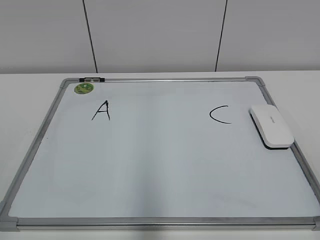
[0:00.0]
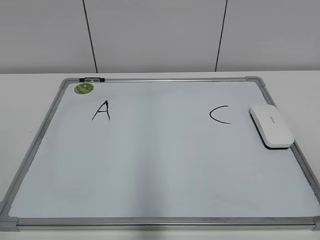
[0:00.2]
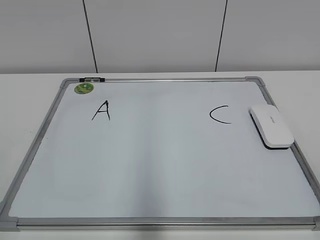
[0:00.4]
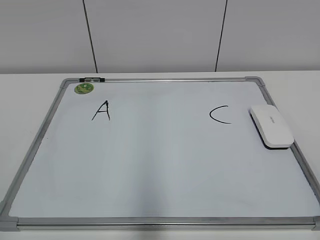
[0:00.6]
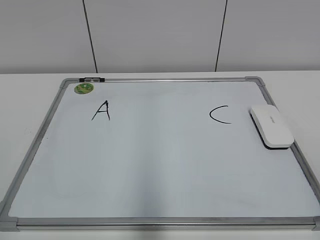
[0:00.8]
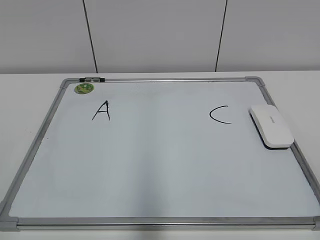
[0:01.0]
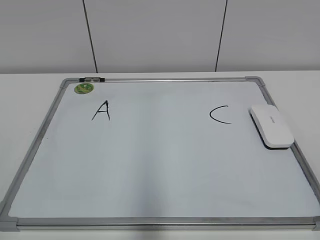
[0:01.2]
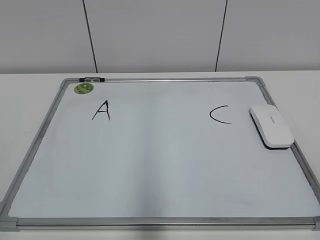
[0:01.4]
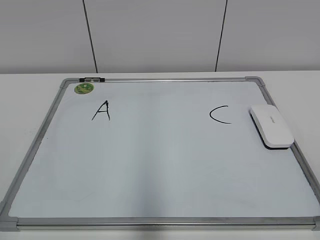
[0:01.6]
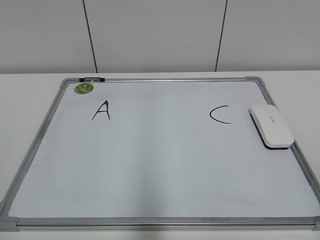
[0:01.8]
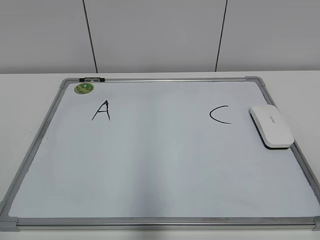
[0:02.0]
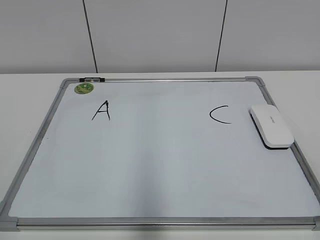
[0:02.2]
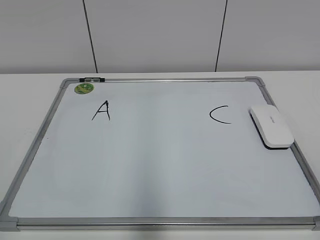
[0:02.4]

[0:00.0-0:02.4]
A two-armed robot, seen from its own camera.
Task of the whole recording: pick up the eraser on the blackboard and erase the letter "B".
0:01.2 to 0:02.4: Neither gripper changes place.

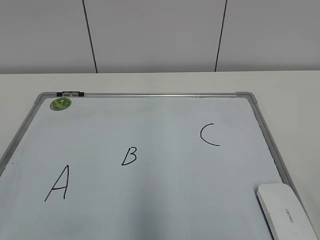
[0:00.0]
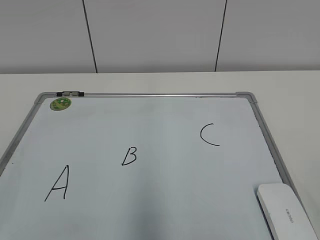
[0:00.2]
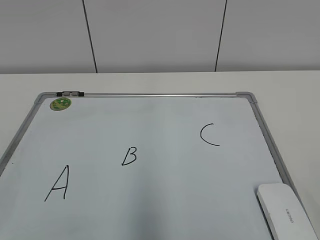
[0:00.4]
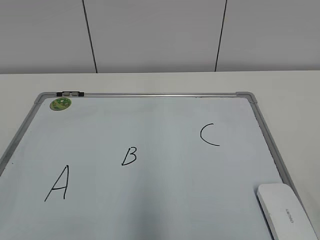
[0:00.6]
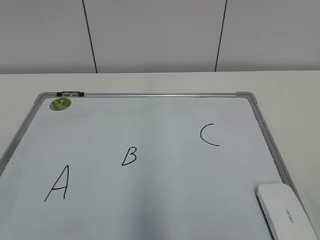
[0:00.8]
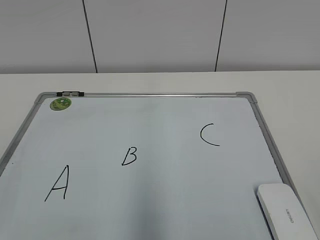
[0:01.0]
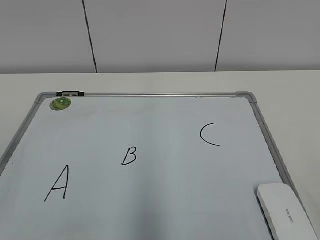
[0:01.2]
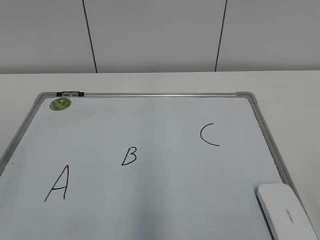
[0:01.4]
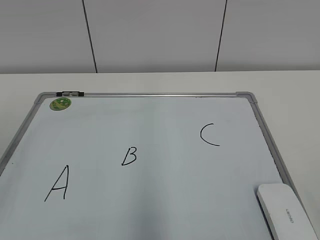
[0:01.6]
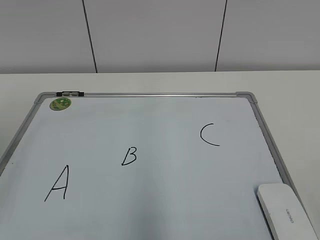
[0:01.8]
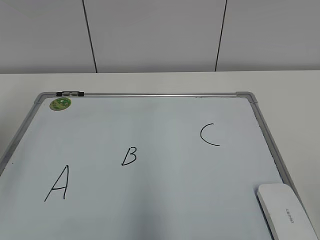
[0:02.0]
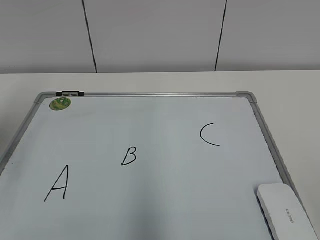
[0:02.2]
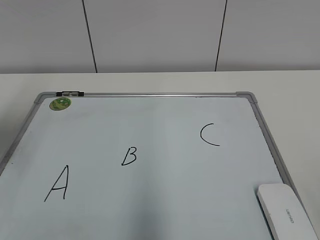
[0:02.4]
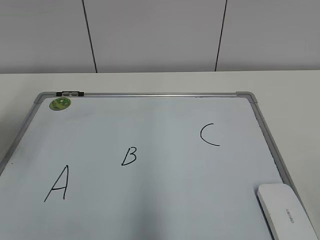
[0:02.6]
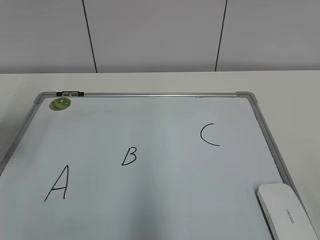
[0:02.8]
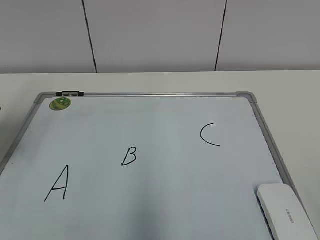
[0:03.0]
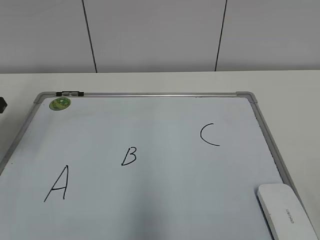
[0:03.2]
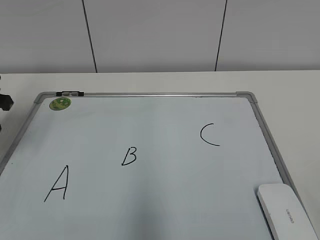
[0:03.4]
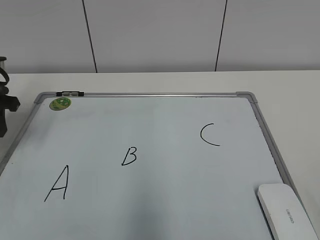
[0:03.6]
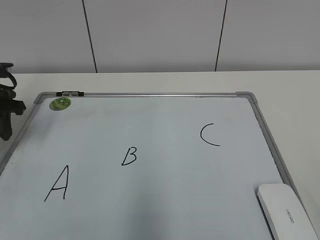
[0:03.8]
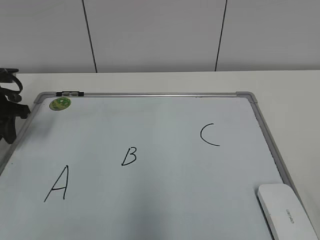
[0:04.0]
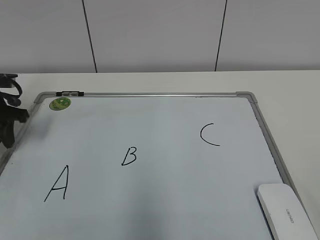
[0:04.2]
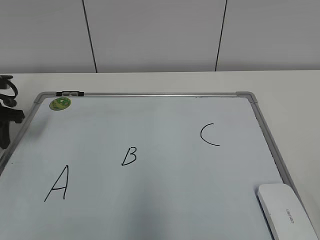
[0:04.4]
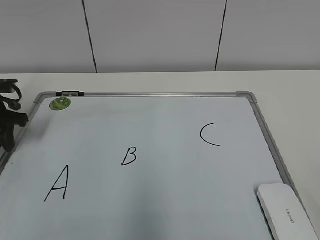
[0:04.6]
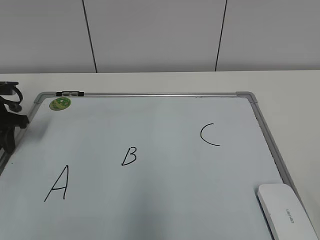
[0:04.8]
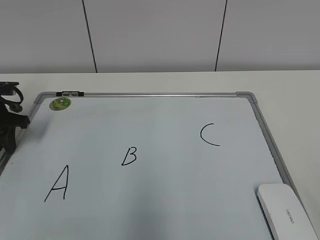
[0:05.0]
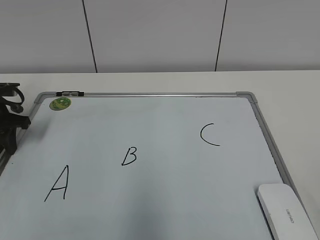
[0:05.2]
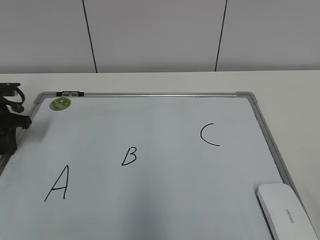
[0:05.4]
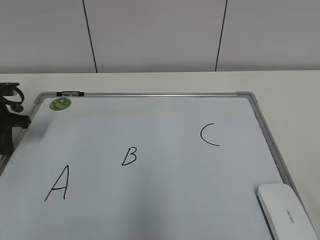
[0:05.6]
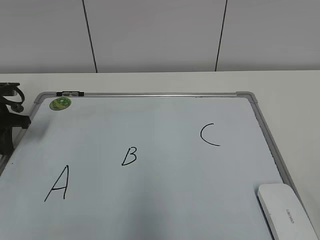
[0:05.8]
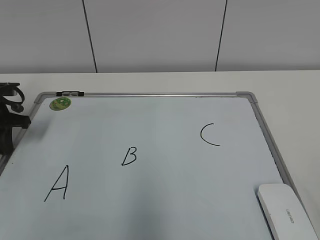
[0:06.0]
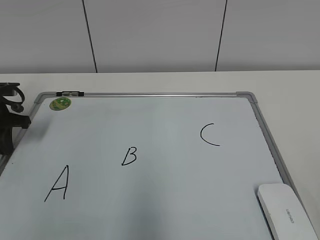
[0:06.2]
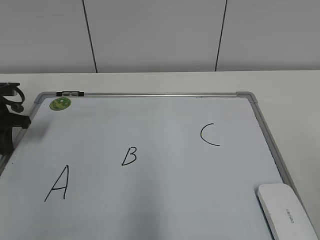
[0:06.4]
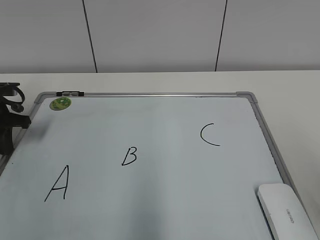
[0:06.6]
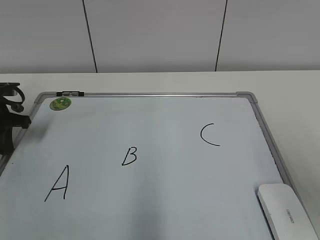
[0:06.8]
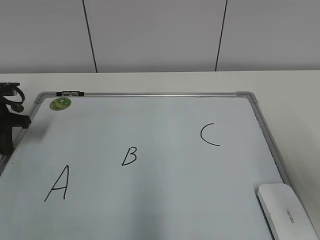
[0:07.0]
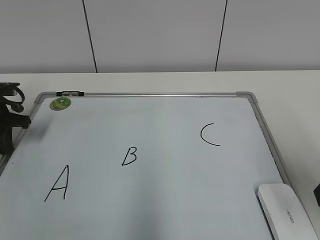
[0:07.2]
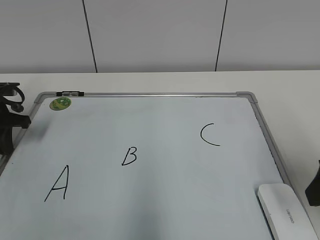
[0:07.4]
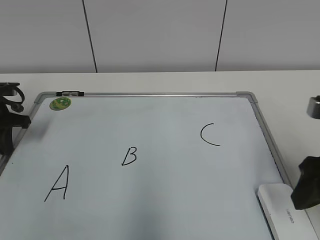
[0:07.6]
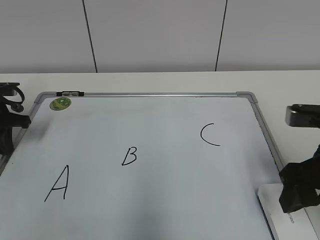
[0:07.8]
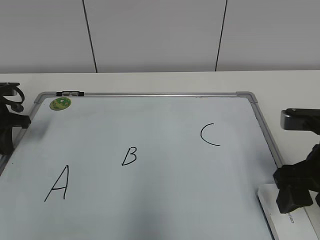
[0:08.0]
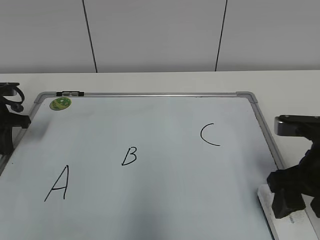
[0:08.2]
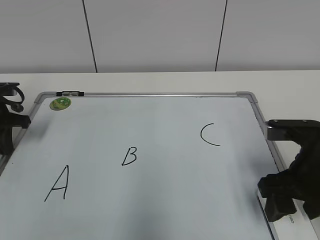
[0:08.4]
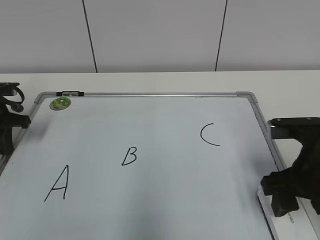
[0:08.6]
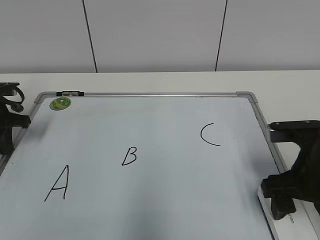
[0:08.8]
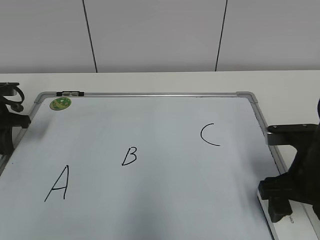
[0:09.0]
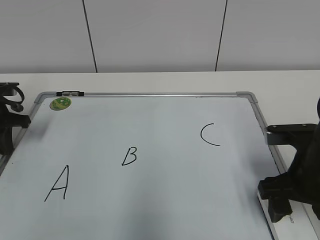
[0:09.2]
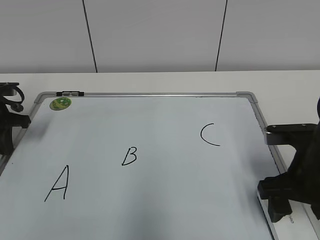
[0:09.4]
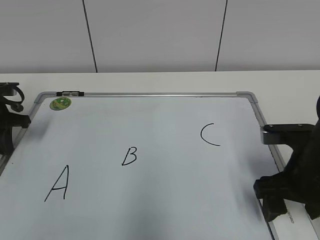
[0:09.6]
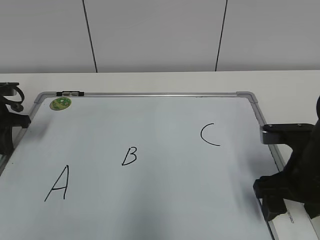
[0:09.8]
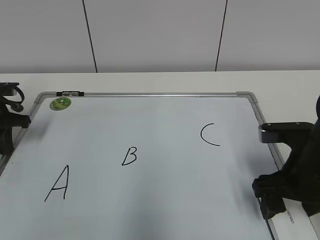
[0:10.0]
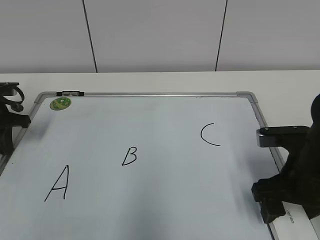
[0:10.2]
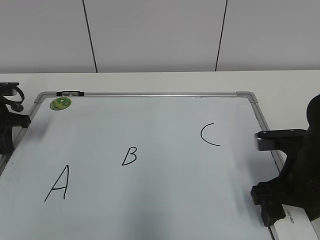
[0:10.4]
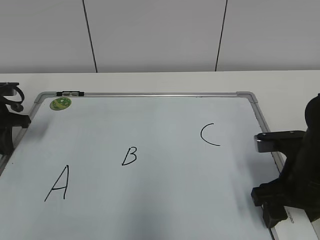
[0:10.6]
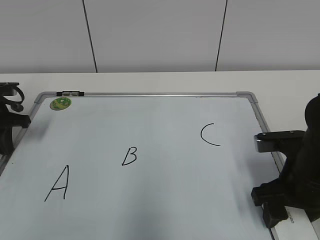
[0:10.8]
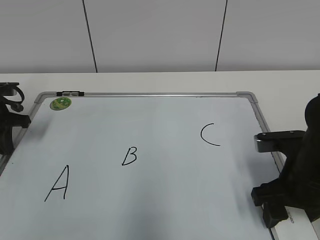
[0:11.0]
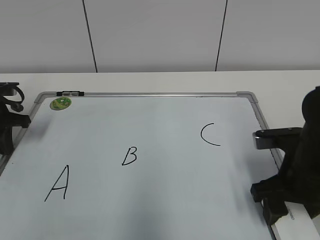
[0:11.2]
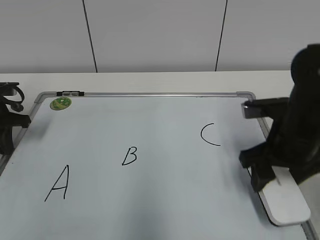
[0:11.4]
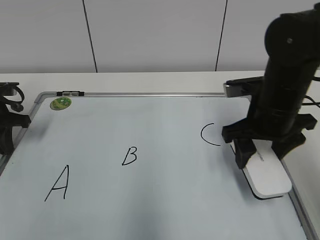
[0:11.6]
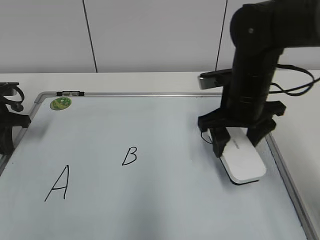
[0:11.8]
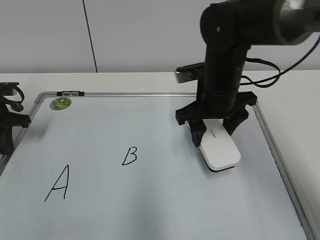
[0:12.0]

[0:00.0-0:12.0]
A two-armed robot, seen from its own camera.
Task of the whole recording: pick up the eraser on the blackboard and erase the letter "B".
Step, 0:00.0 to 0:05.6: Hold the drawing board steady with your left hand.
Step, 0:05.8 to 0:10.8: Grab the eraser with your right hand.
0:01.6 to 0:03.0: The left gripper heads forward and downward, covering some 20 cm.
0:03.0 to 0:04.4: The left gripper shifts some 10 cm downward and forward.
0:04.4 to 0:06.0: The left gripper closes its fingers.
0:06.0 to 0:07.6: The right gripper heads forward, covering roughly 20 cm.
0:07.6 to 0:09.0: The right gripper is displaced downward by approximately 5 cm, and opens its fingers.
0:09.0 to 0:10.4: The grippers move only a little.
0:10.4 to 0:12.0: The right gripper travels forward, to the left and upward by approximately 15 cm, and closes up.

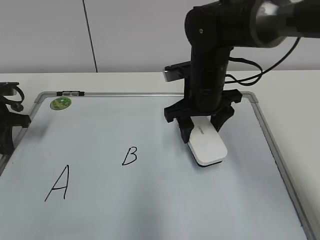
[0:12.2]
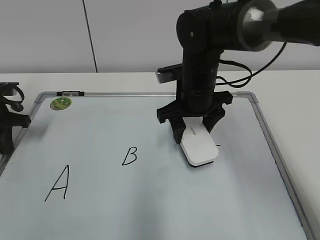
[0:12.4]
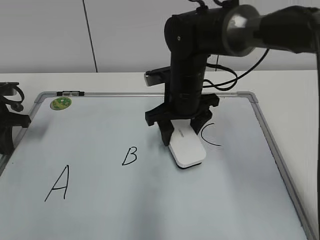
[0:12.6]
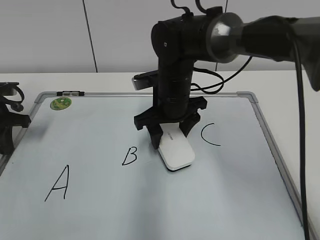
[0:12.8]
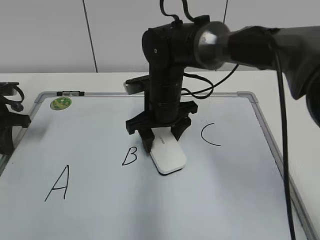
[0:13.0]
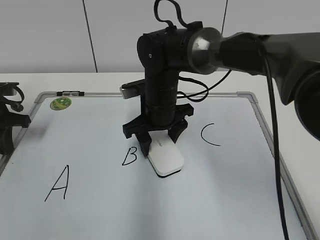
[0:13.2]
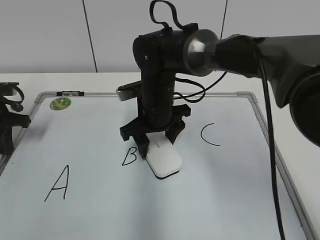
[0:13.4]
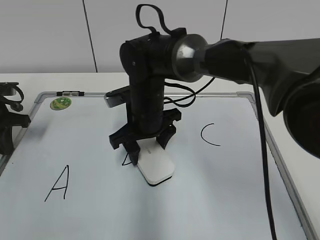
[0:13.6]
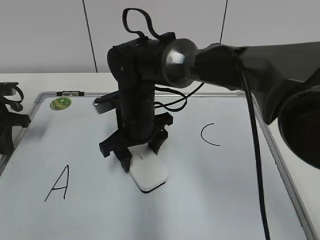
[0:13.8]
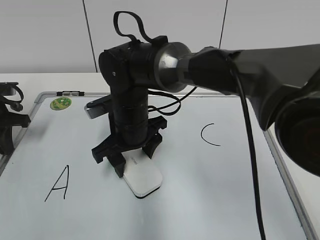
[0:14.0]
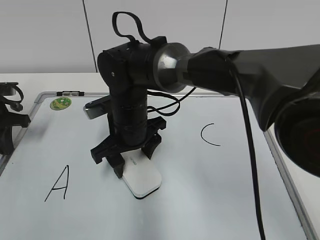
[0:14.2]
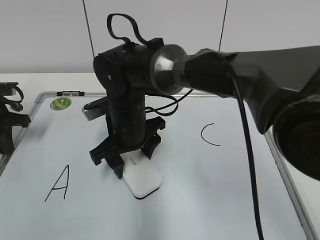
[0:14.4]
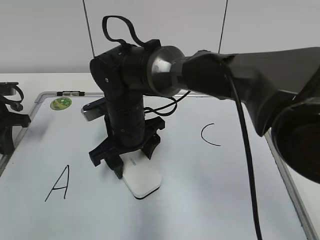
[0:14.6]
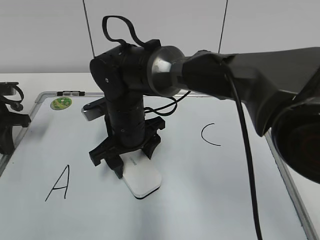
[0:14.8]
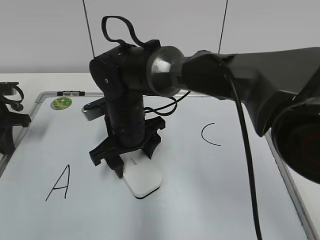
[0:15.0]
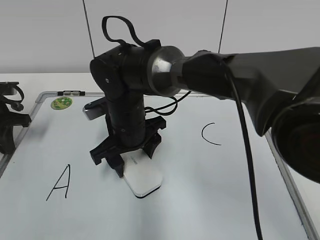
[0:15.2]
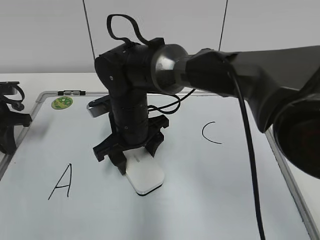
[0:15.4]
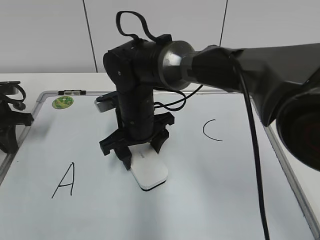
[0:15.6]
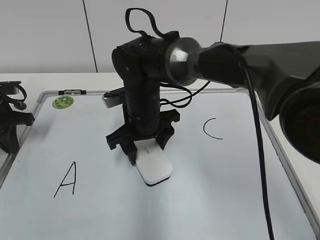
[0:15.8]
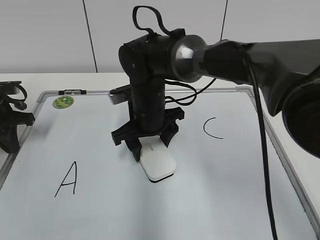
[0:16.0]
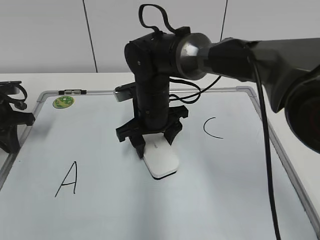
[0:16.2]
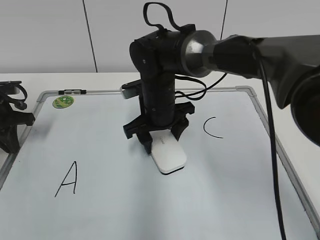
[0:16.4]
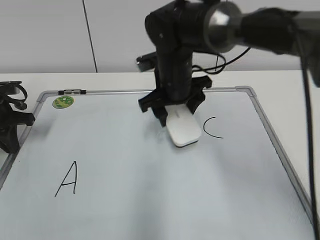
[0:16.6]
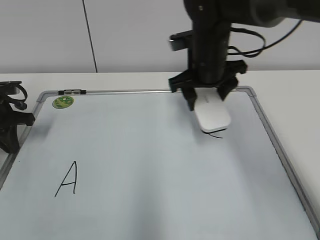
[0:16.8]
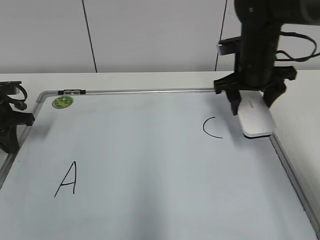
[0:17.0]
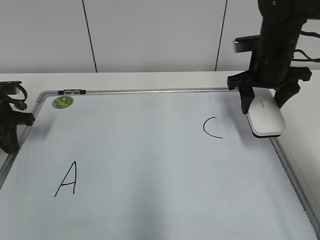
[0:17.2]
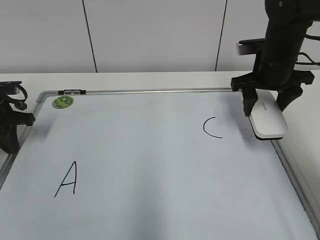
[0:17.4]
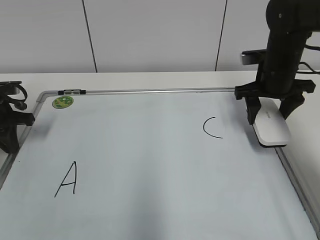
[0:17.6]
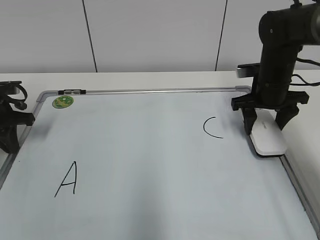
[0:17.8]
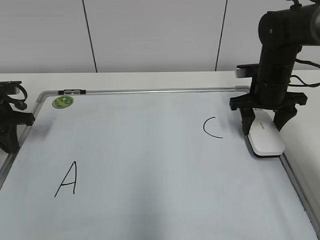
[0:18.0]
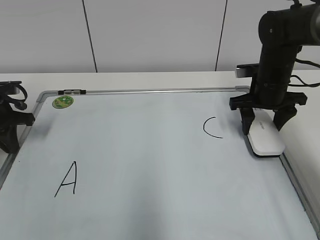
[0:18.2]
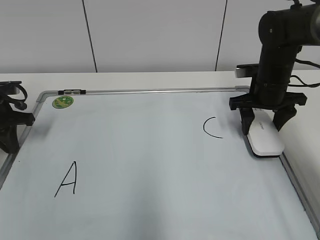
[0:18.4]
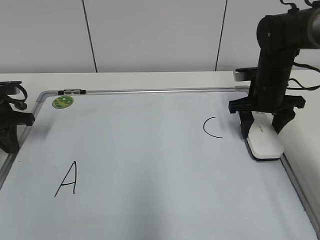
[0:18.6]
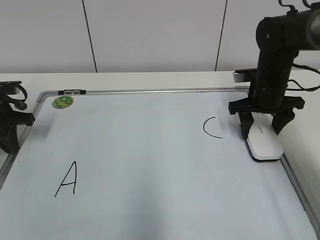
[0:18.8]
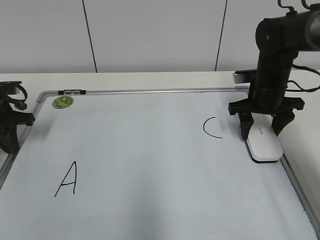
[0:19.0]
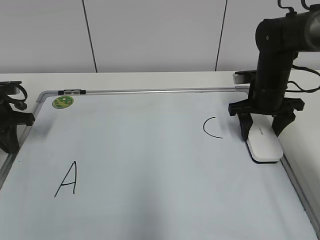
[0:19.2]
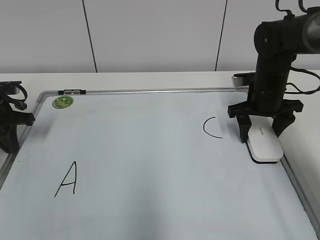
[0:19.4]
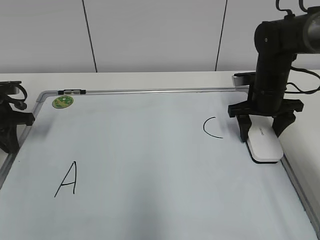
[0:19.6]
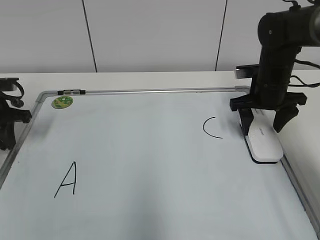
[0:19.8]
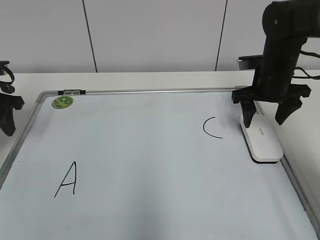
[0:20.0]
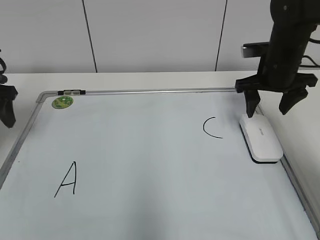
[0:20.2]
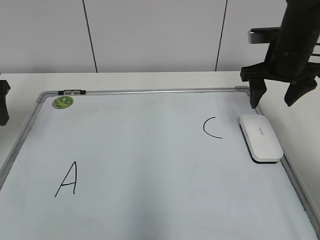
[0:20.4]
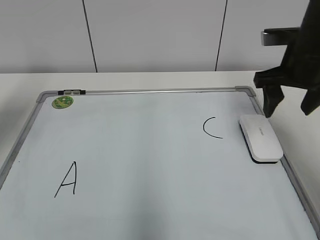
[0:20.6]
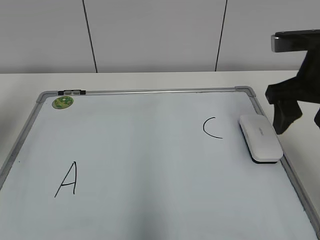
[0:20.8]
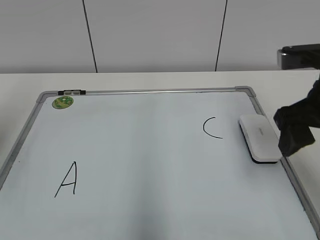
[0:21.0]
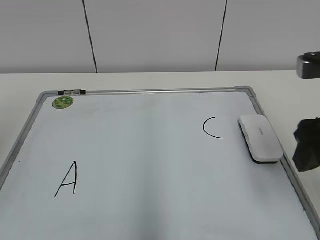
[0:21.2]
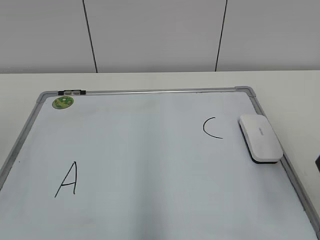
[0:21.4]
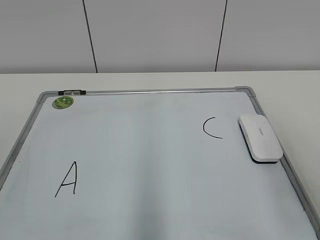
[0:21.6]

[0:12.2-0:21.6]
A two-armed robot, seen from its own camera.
Task of the whole recording: pick up the eraser on the blackboard and erase the letter "B".
Step, 0:12.2 to 0:16.2: Erase the letter B with your right hand.
0:12.2 to 0:13.8: The right gripper is displaced to the left by some 10 cm.
0:13.8 to 0:15.4: The grippers move only a little.
0:15.4 to 0:17.0: The right gripper is displaced to the right by approximately 20 cm.
0:17.0 to 0:18.4: The right gripper travels downward by some 5 cm.
0:18.4 to 0:20.0: The left gripper shifts some 5 cm upward, and opens up. The right gripper opens.
0:20.0 to 0:21.6: The left gripper shifts some 30 cm backward, while the right gripper goes some 30 cm backward and upward.
